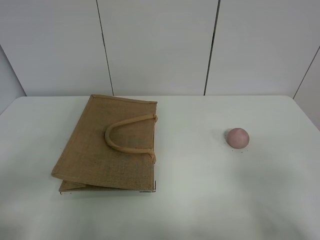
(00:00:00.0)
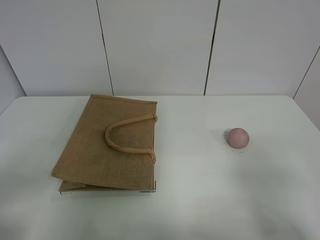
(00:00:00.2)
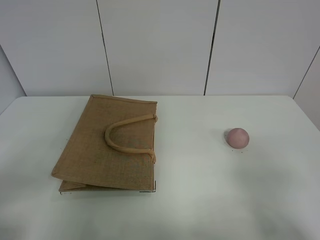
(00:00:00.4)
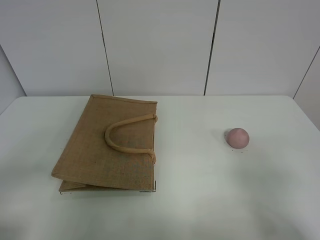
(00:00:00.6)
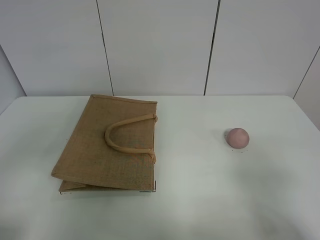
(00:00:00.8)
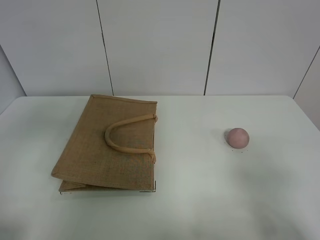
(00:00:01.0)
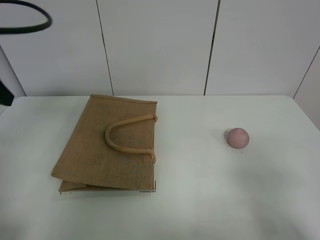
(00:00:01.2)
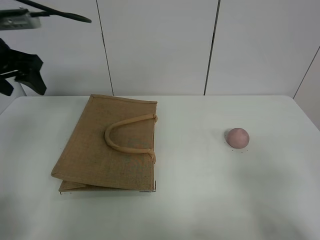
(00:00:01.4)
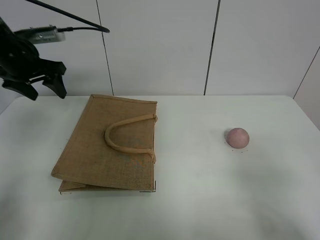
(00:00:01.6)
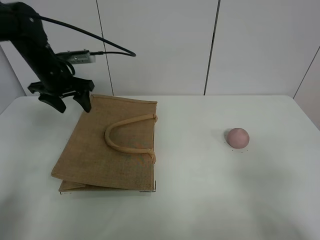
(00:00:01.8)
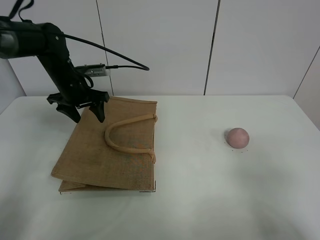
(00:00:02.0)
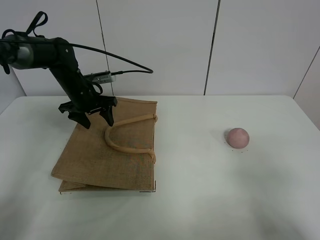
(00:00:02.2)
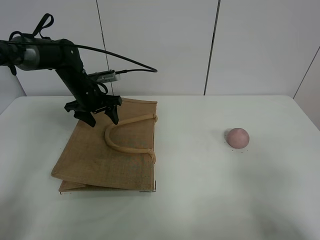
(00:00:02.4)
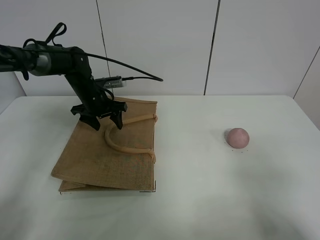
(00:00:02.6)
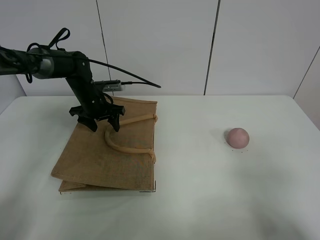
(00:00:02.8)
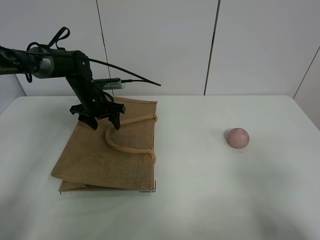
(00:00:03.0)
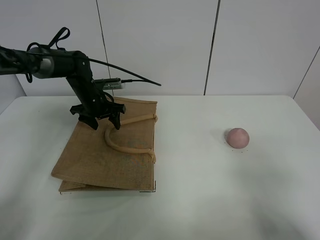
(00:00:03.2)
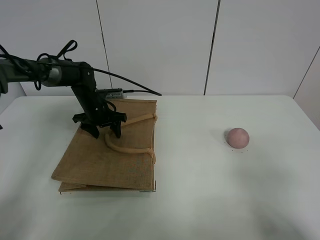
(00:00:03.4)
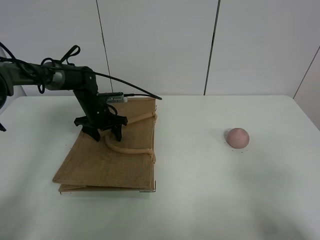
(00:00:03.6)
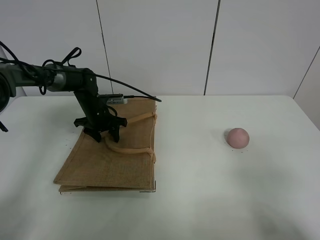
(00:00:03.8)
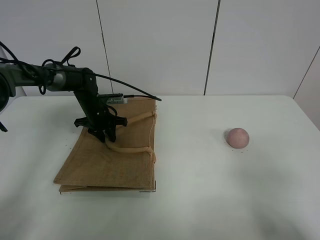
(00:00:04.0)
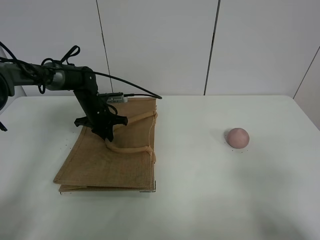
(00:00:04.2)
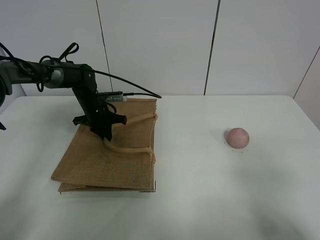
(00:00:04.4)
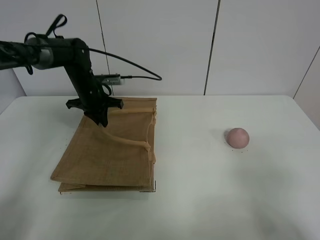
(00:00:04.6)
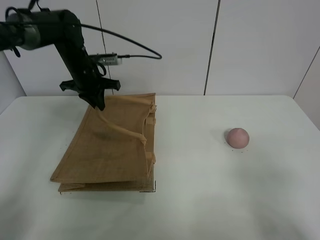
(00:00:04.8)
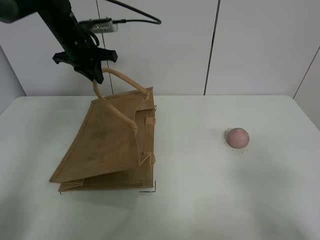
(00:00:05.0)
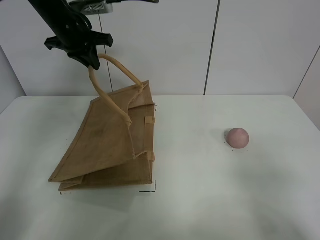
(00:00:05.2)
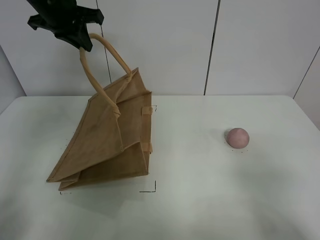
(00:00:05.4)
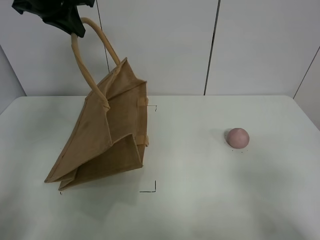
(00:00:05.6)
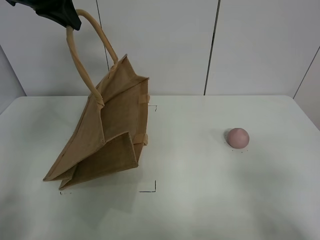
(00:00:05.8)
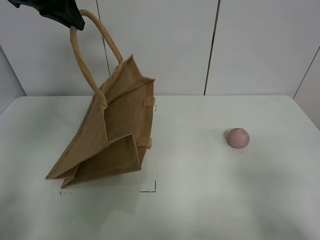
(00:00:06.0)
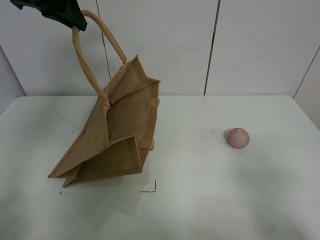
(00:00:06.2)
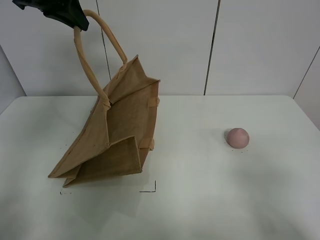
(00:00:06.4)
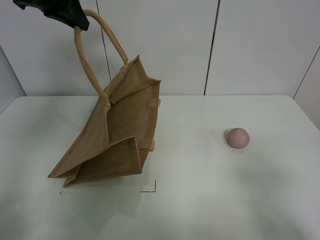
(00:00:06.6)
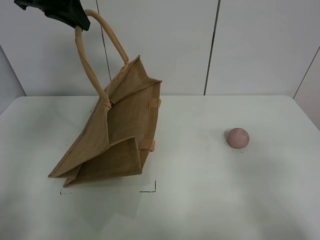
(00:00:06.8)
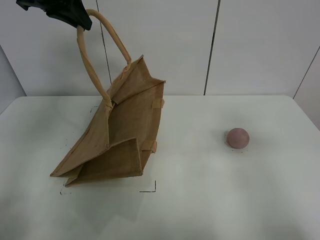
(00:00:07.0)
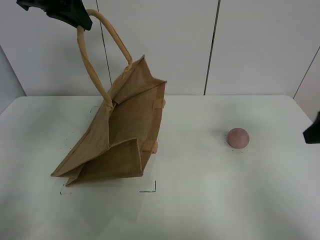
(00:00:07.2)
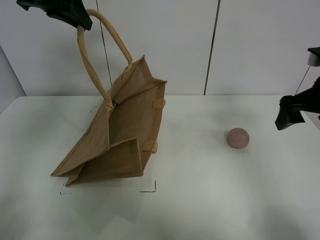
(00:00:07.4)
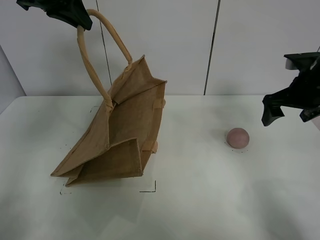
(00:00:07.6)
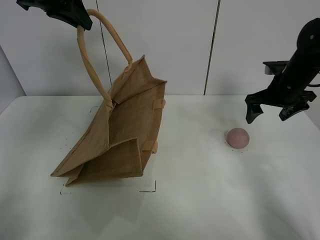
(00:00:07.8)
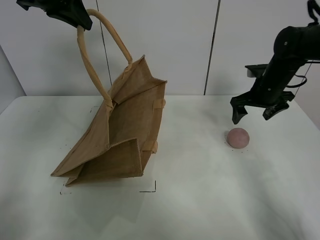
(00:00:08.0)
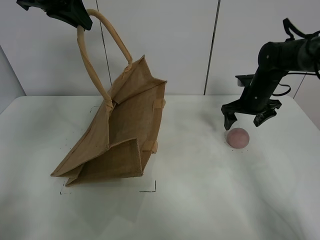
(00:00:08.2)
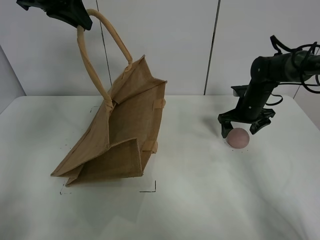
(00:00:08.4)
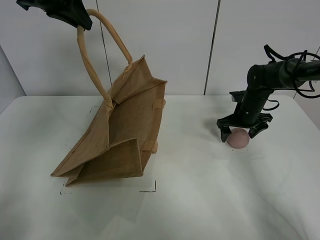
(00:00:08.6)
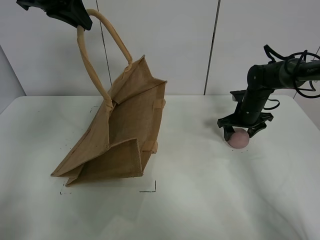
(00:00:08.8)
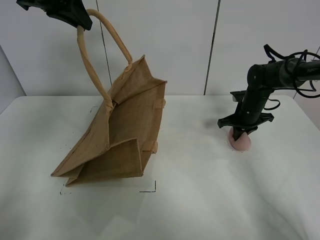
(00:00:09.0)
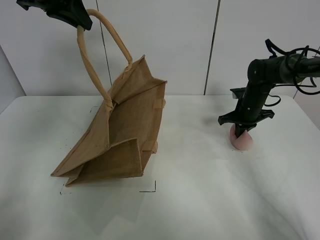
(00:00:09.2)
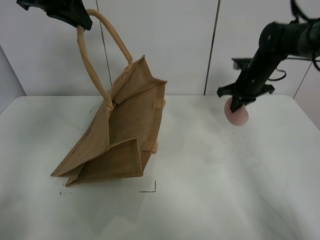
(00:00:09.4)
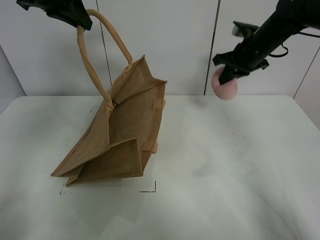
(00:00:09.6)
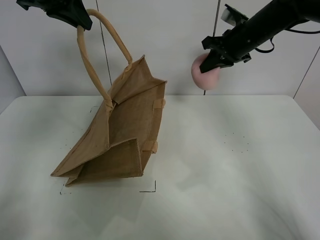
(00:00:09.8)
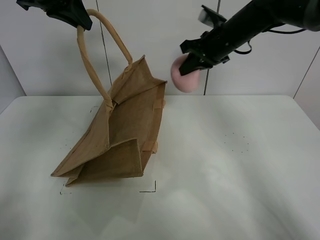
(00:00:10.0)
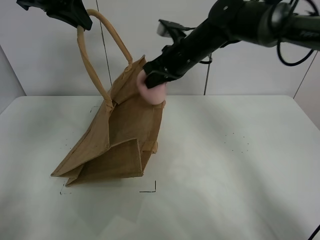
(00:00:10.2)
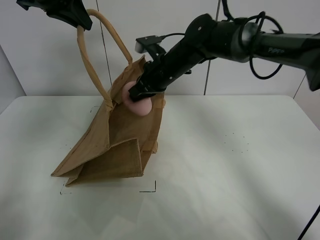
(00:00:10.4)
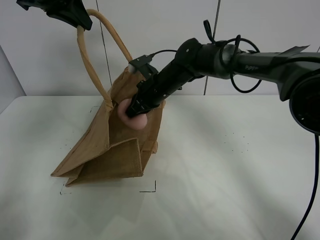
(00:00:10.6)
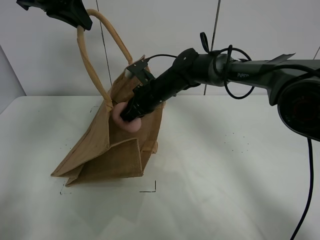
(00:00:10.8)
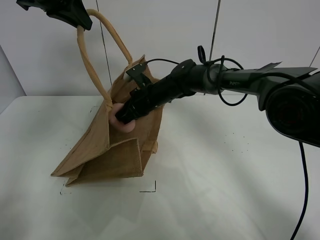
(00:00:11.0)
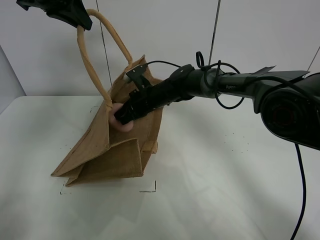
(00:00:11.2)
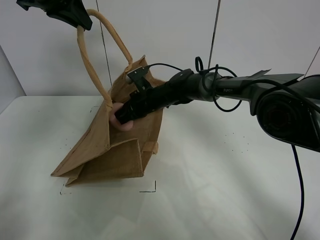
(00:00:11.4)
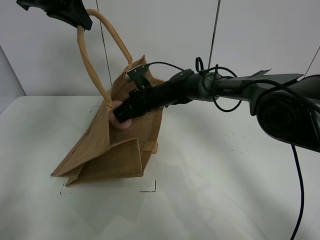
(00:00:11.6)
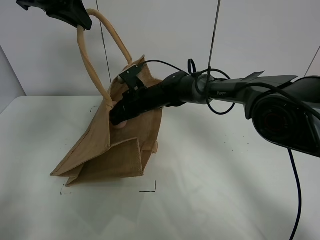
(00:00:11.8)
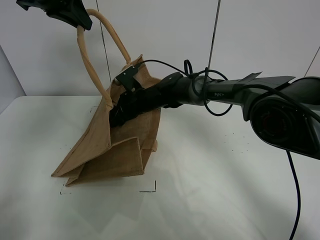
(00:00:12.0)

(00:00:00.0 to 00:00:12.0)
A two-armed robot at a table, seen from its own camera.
Task of the whole recording: open the brown linen bag and put the peach in the bag.
Step, 00:00:00.0 - 00:00:06.0: Lift the handbag with left gripper.
Step, 00:00:06.2 - 00:00:09.0: Grasp the peach with right gripper.
00:00:00.0 - 00:00:01.6: The left gripper travels forward by approximately 40 cm.
00:00:01.6 - 00:00:03.0: The left gripper heads downward, to the right and forward, covering about 20 cm.
00:00:03.0 - 00:00:04.4: The left gripper closes.
00:00:04.4 - 00:00:06.0: The left gripper moves upward, roughly 30 cm.
00:00:06.0 - 00:00:07.6: The right gripper moves forward, some 35 cm.
00:00:07.6 - 00:00:09.0: The right gripper is displaced downward and forward by some 20 cm, and closes up.
00:00:09.0 - 00:00:10.4: The right gripper moves to the left and upward, about 25 cm.
00:00:10.4 - 00:00:12.0: The right gripper heads downward and to the left, covering approximately 10 cm, and opens its fingers.

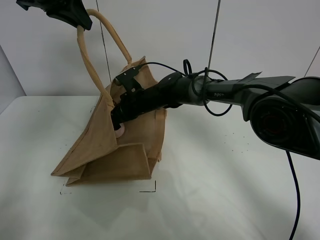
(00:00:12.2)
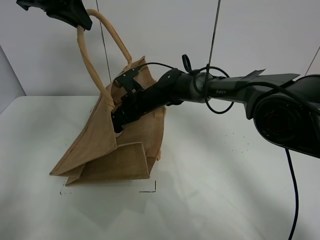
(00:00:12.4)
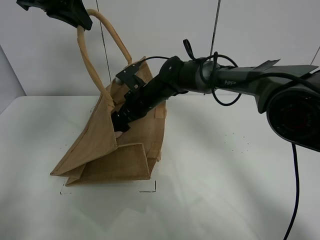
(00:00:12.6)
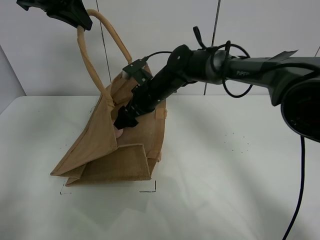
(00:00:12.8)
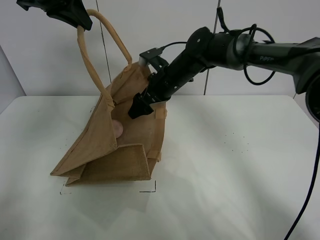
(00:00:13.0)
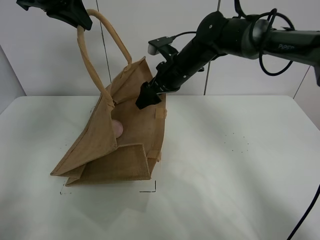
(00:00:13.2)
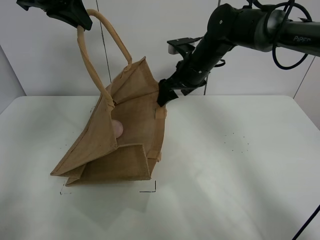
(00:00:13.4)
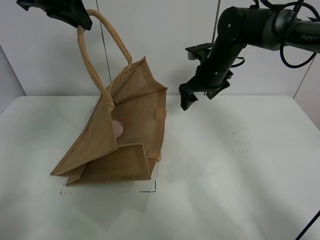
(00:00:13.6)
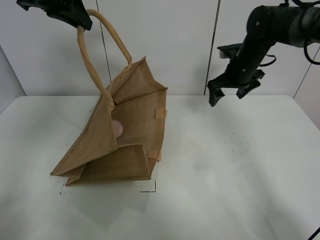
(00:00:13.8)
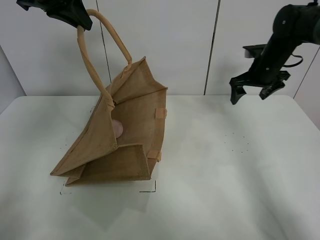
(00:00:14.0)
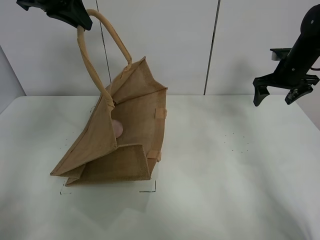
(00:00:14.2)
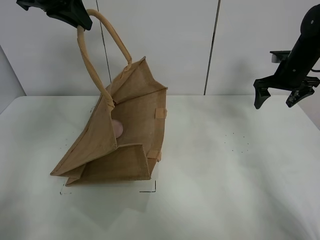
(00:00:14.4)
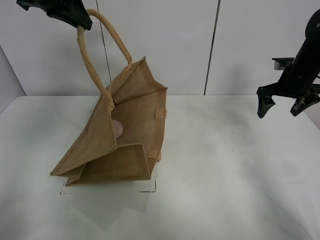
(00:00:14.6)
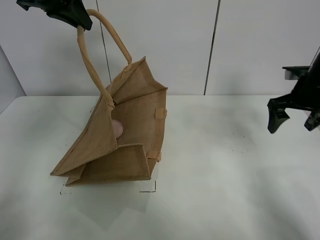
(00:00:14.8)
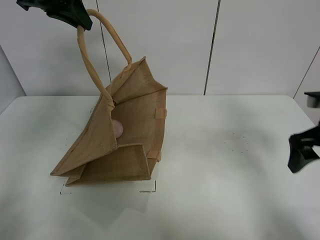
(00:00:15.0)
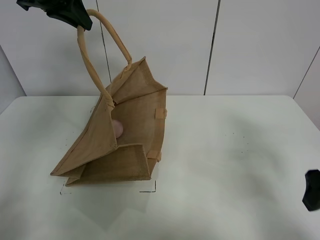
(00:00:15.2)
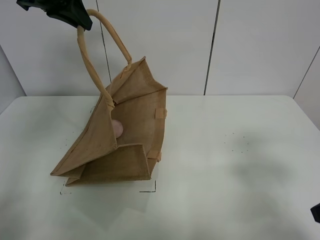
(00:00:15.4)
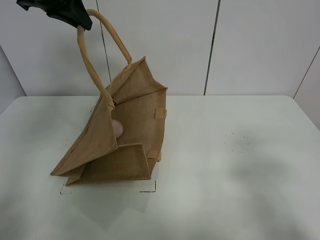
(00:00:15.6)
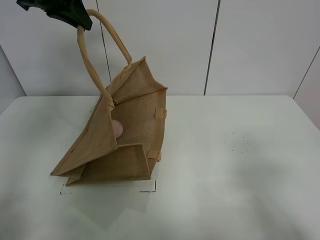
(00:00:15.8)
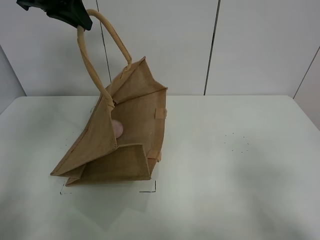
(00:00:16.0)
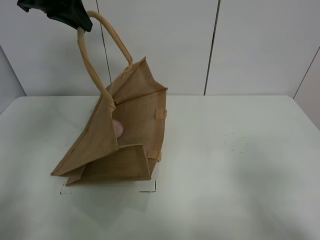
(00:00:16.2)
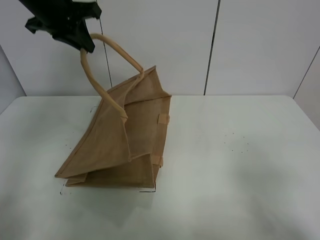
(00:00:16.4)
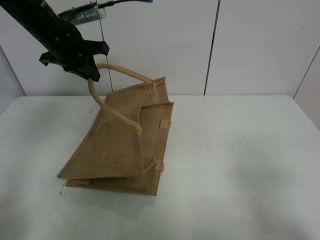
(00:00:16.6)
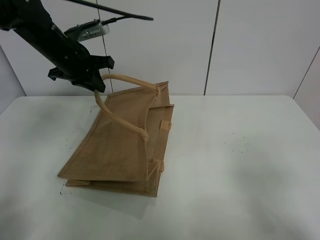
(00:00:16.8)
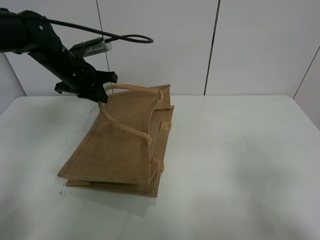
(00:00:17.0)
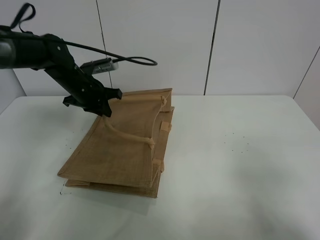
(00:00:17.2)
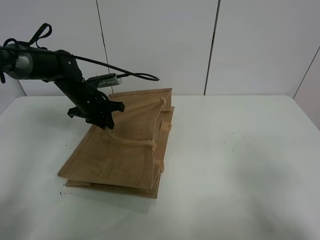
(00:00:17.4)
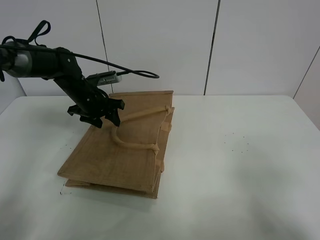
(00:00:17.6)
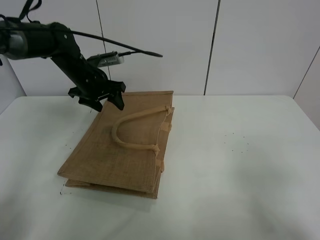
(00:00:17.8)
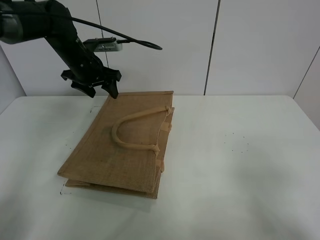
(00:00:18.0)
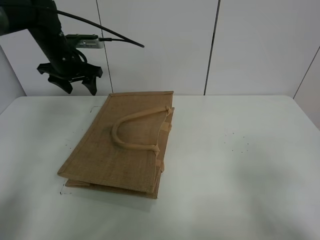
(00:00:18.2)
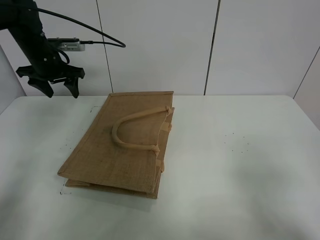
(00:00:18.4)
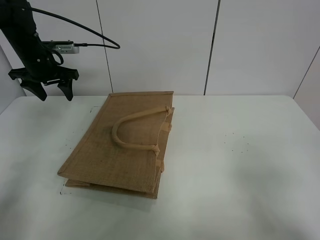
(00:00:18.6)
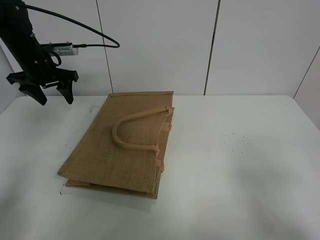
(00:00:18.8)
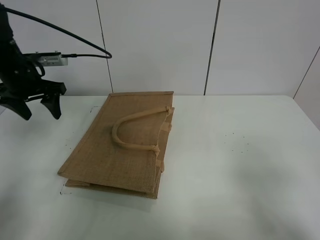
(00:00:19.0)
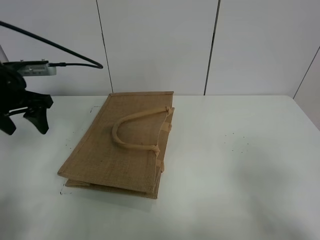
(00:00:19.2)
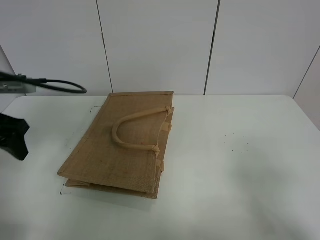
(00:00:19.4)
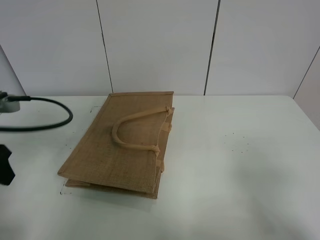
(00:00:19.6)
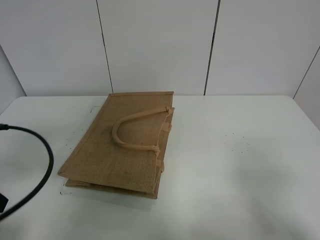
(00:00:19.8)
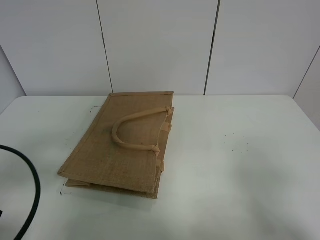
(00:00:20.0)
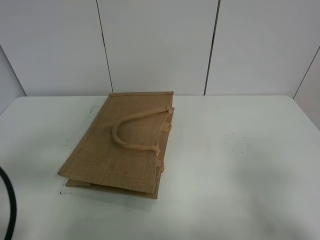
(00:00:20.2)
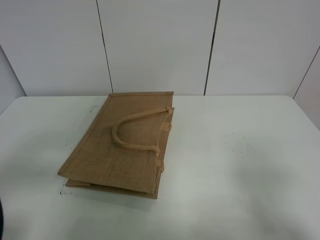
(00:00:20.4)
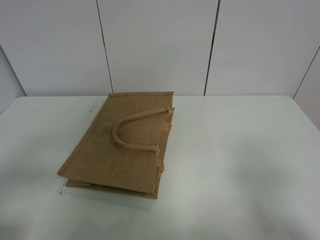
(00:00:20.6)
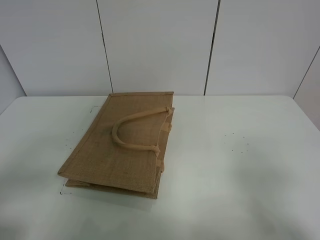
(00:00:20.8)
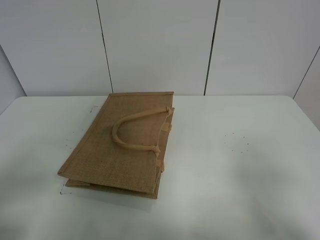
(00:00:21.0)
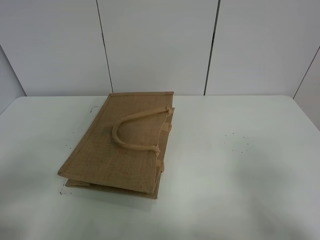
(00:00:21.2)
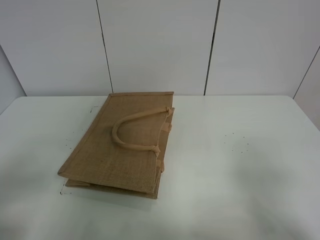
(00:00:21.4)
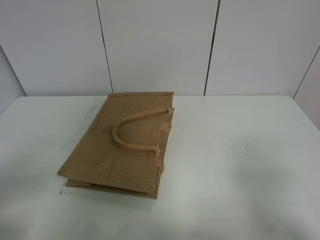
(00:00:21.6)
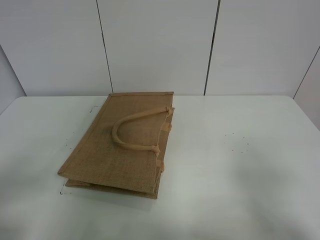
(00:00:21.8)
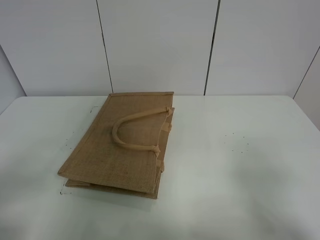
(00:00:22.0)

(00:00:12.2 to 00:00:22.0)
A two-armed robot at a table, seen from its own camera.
Task of the whole recording: open the brown linen bag and put the peach in the bag.
Step, 00:00:13.6 - 00:00:18.0: Put down the handbag with left grippe.
00:00:12.2 - 00:00:13.6: The right gripper moves to the right and upward, about 20 cm.
00:00:13.6 - 00:00:15.0: The right gripper moves backward and to the right, approximately 25 cm.
00:00:15.0 - 00:00:16.4: The right gripper goes about 20 cm backward.
00:00:16.4 - 00:00:17.8: The left gripper shifts some 15 cm downward, and opens.
00:00:17.8 - 00:00:19.2: The left gripper goes some 15 cm backward and to the left.
00:00:19.2 - 00:00:20.6: The left gripper heads backward, covering about 25 cm.
